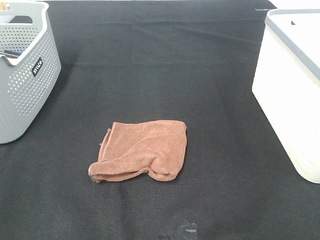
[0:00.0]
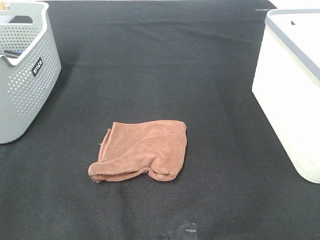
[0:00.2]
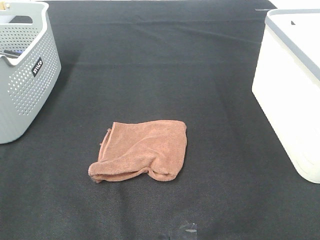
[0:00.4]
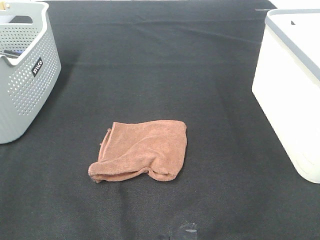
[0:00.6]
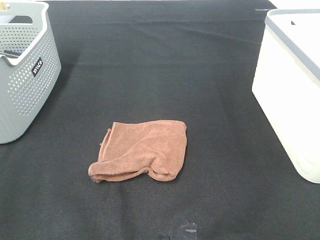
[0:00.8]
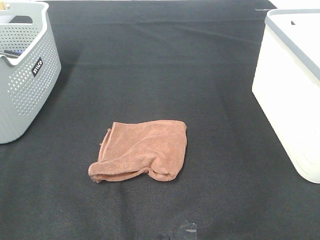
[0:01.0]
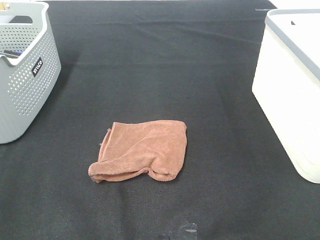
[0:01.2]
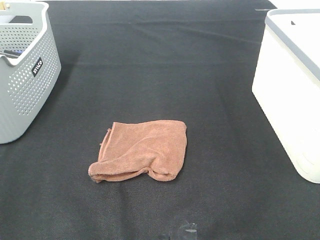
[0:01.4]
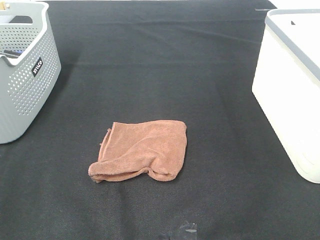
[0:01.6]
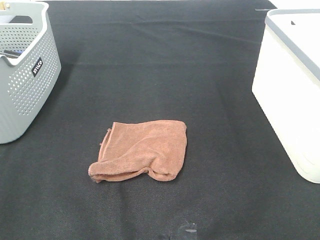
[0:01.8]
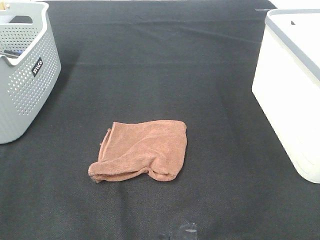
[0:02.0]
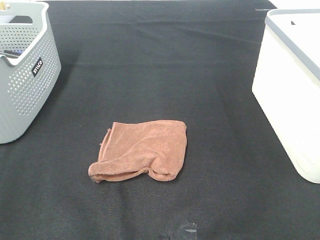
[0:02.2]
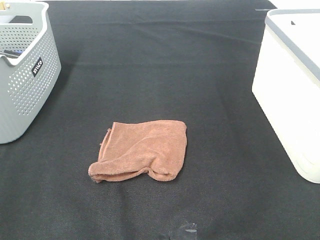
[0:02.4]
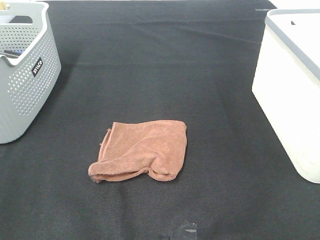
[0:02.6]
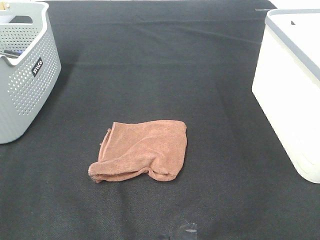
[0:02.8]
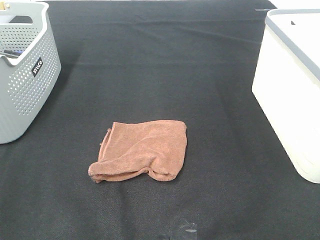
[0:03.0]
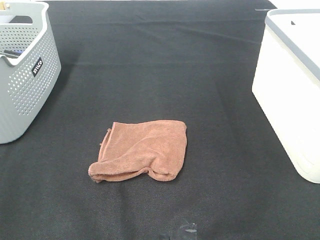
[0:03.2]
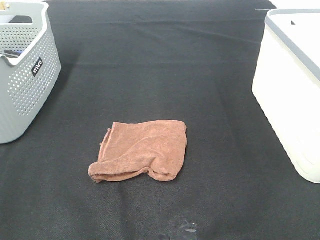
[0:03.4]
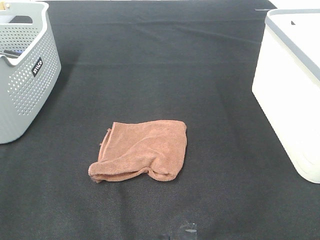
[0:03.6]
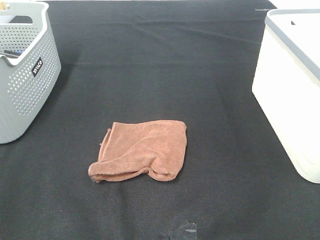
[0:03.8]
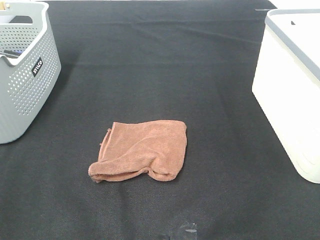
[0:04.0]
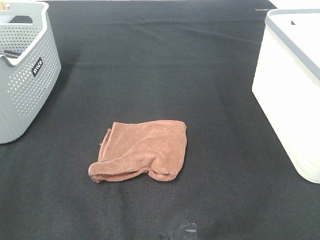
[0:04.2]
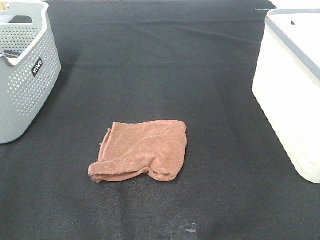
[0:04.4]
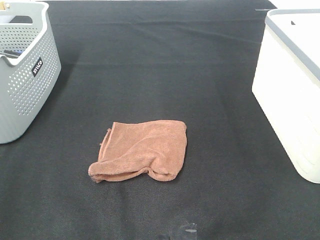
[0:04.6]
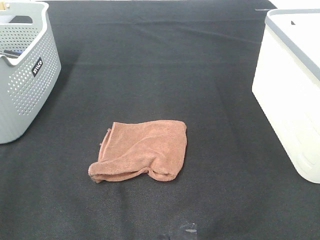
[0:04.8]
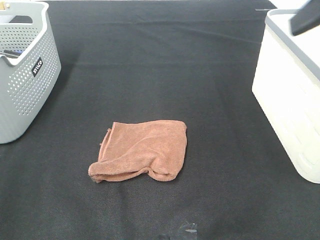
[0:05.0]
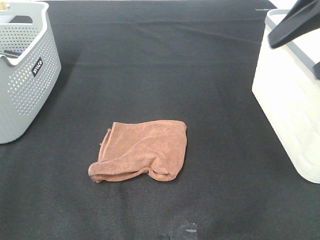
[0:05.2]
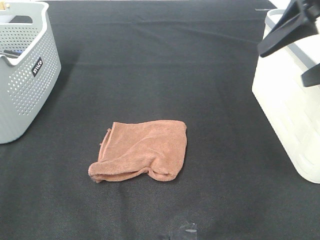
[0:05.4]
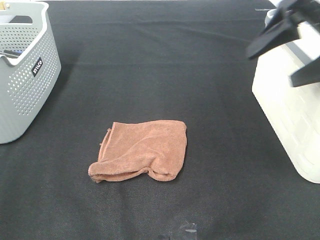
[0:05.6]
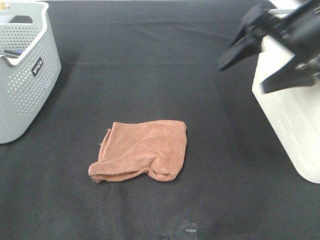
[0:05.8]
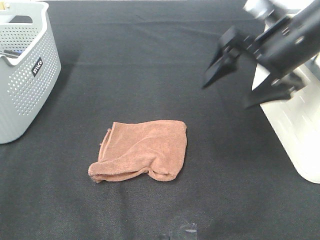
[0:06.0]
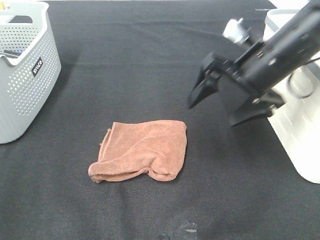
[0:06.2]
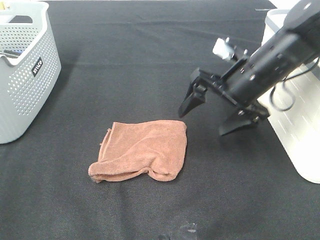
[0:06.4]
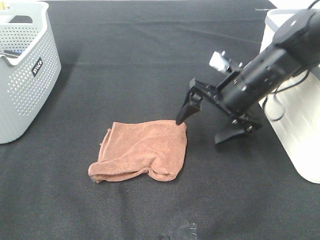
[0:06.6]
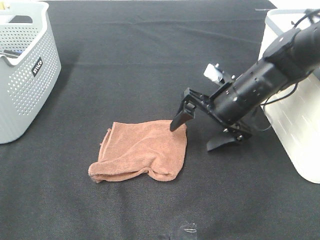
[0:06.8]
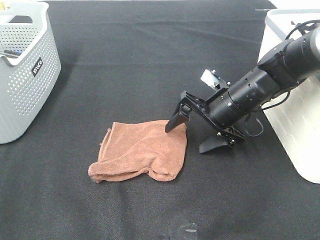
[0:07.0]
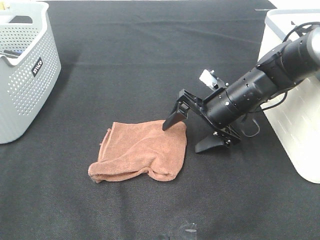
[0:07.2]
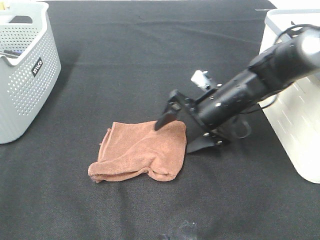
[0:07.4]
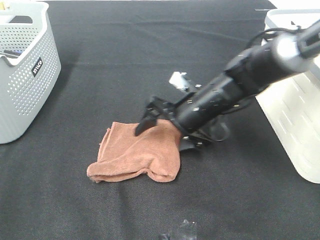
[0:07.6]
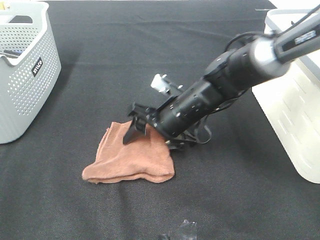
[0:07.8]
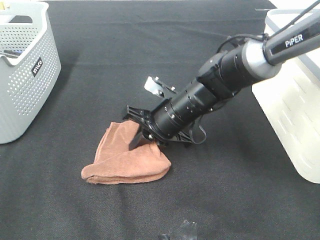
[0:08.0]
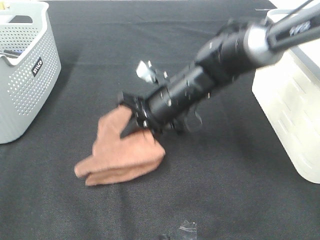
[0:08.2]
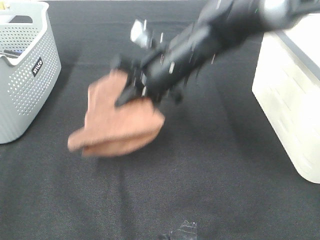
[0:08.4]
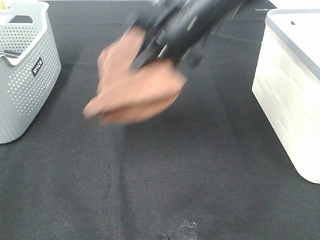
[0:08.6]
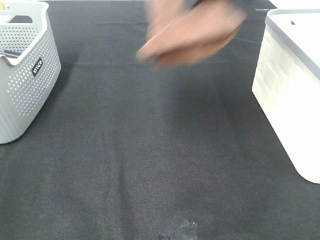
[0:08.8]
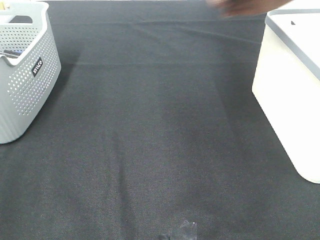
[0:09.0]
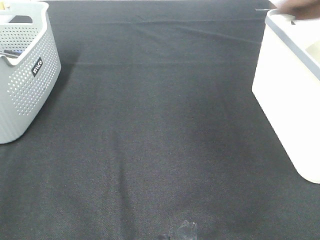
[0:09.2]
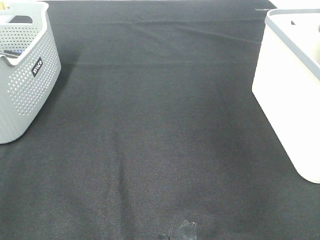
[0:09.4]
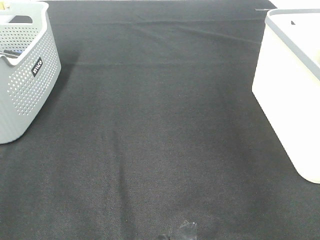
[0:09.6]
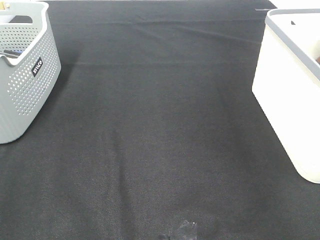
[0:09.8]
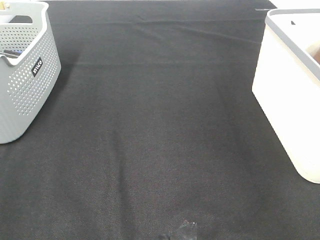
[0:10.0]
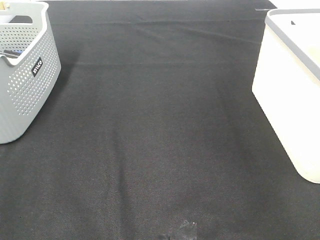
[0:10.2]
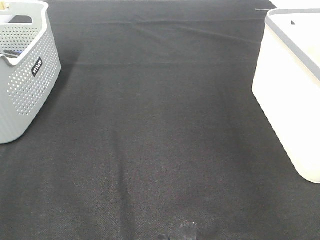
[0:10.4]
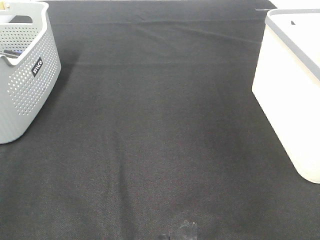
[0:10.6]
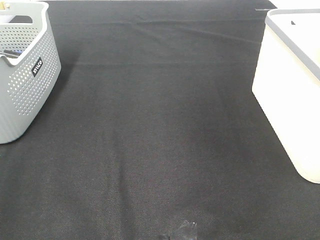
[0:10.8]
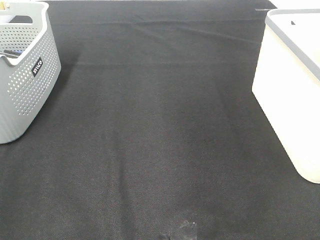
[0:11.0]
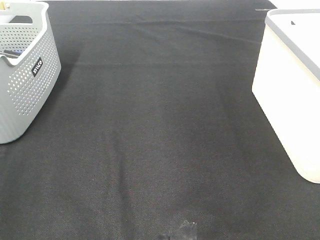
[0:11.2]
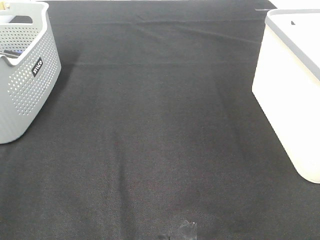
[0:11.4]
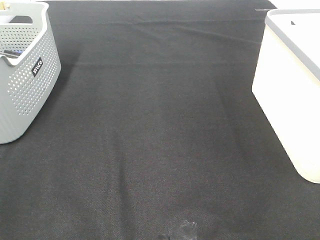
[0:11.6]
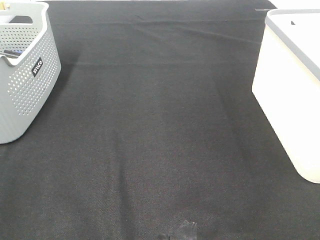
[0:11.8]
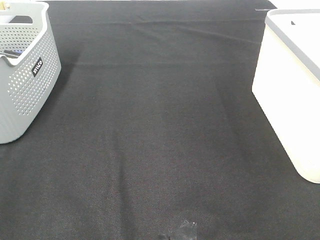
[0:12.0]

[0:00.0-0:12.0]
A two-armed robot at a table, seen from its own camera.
Step, 0.0 to 8.0 s: Right hand: grab the folded brown towel.
Step, 8.2 to 10.0 s: Right hand: place the brown towel in right basket.
0.0 to 3.0 s: Both grippers stay put.
4.4 to 6.0 s: The right gripper is displaced forward, downward and to the left by approximately 25 cm.
6.0 to 7.6 s: The right gripper travels downward and to the left by some 20 cm.
7.6 to 9.0 s: The right gripper heads upward and to the right, covering roughly 35 cm, and closes up.
9.0 to 10.4 s: The right gripper is displaced to the right and downward by approximately 15 cm, and opens up.

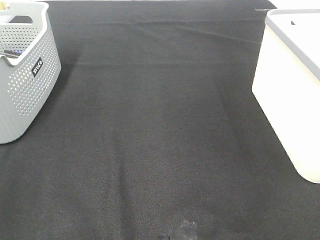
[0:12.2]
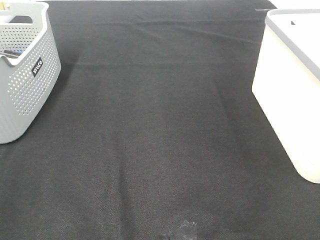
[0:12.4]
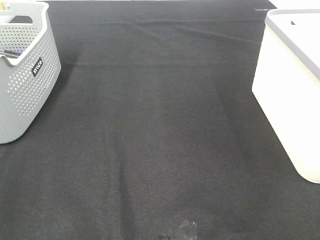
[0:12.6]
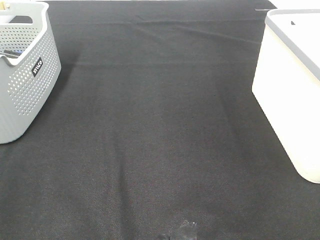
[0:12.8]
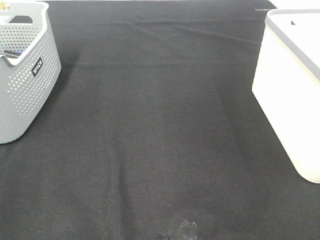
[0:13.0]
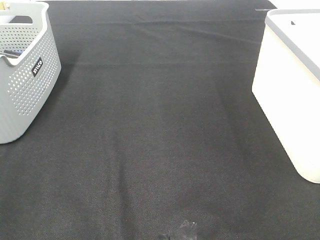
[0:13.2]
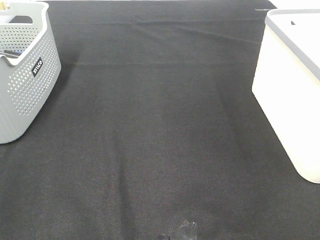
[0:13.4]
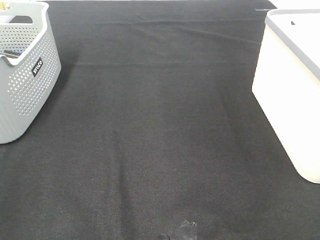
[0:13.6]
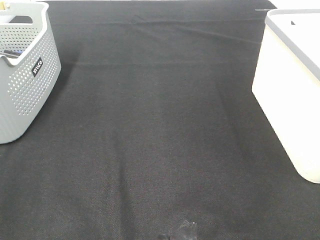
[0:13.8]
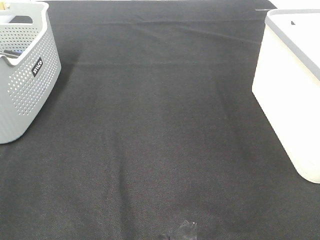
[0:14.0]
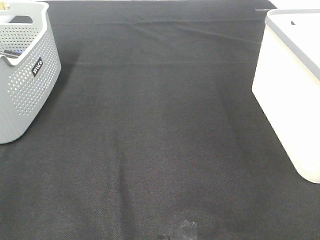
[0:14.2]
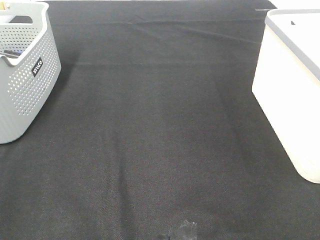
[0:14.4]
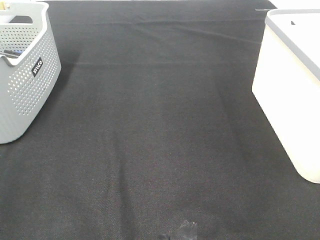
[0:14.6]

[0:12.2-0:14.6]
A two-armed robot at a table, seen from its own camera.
13.4 to 14.6 s: The two grippers keep their place.

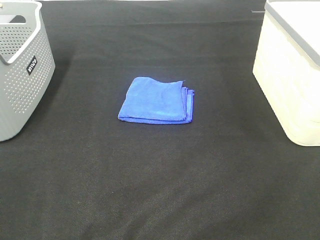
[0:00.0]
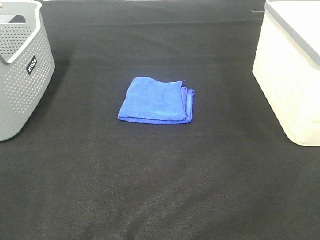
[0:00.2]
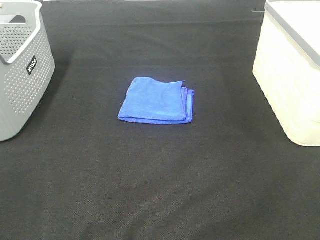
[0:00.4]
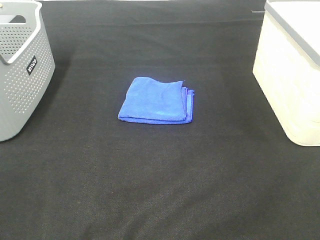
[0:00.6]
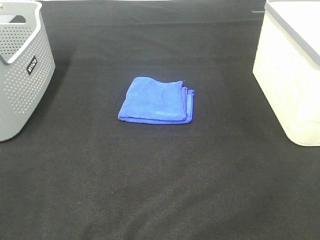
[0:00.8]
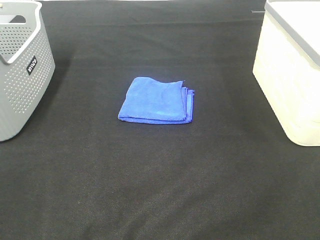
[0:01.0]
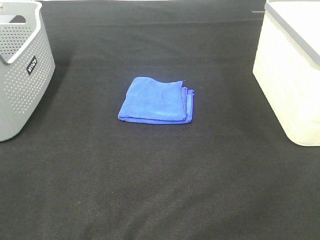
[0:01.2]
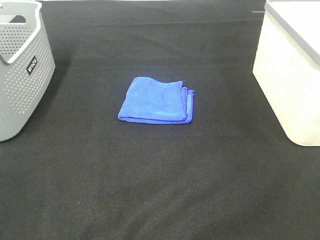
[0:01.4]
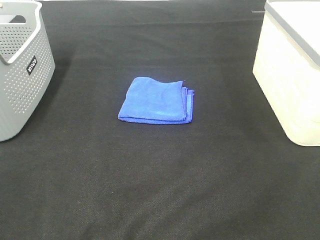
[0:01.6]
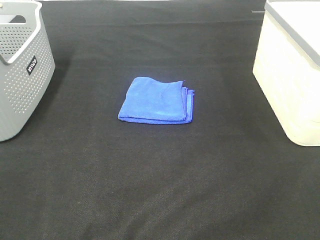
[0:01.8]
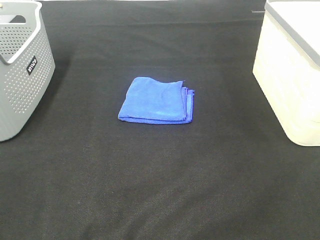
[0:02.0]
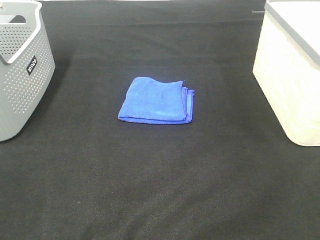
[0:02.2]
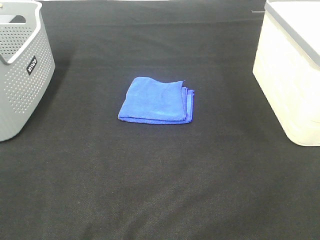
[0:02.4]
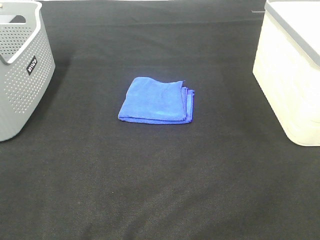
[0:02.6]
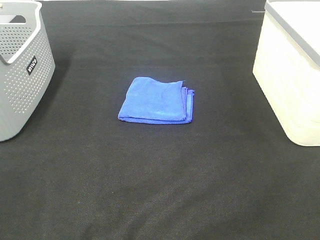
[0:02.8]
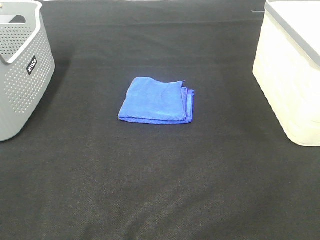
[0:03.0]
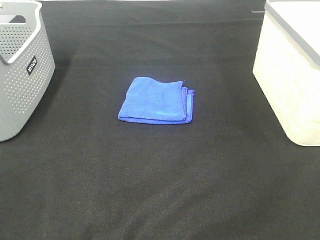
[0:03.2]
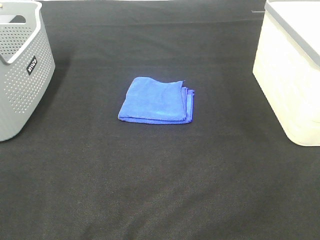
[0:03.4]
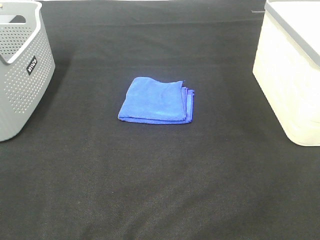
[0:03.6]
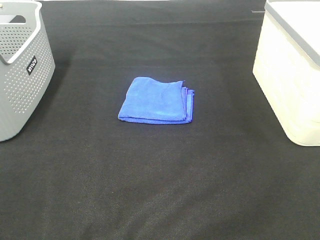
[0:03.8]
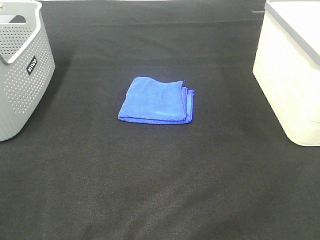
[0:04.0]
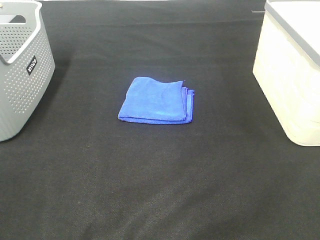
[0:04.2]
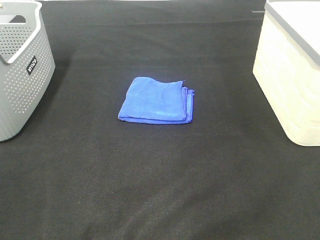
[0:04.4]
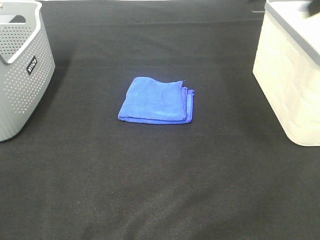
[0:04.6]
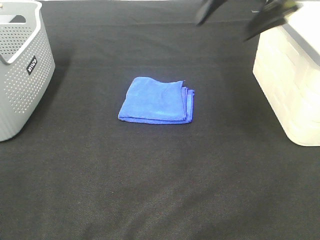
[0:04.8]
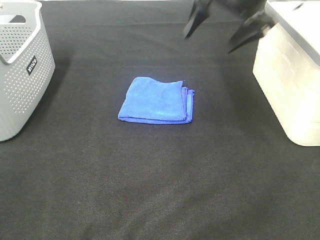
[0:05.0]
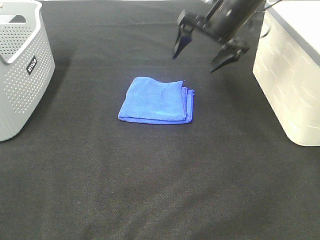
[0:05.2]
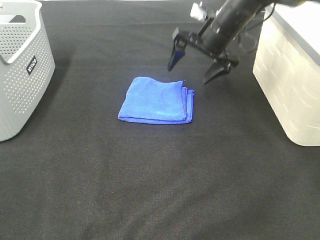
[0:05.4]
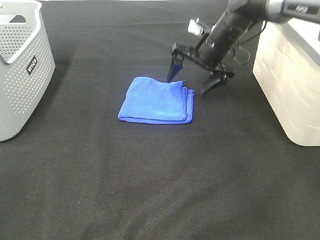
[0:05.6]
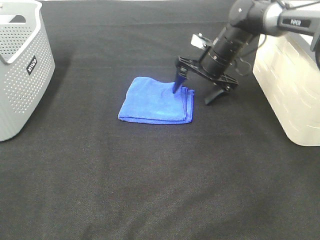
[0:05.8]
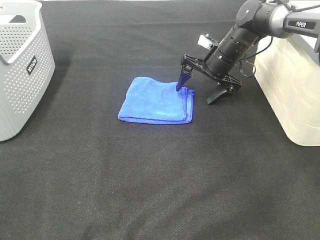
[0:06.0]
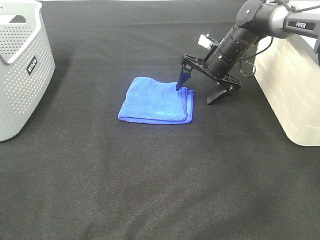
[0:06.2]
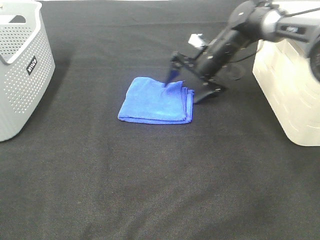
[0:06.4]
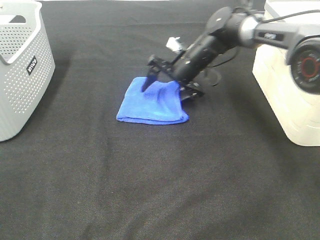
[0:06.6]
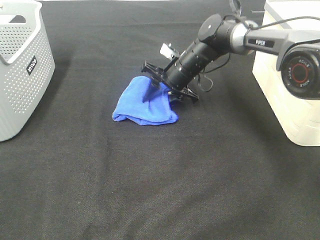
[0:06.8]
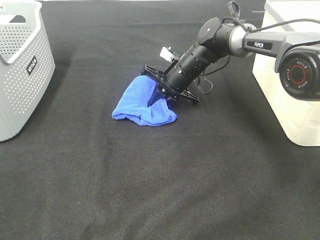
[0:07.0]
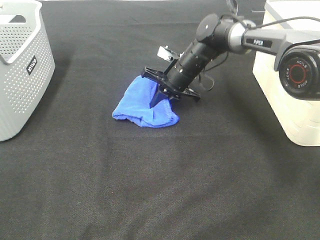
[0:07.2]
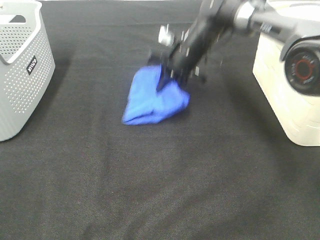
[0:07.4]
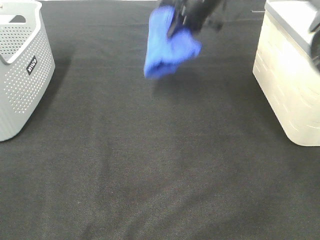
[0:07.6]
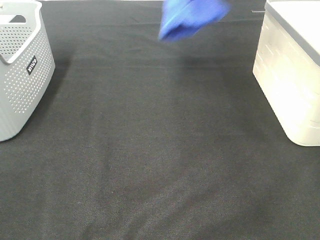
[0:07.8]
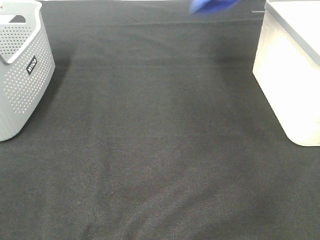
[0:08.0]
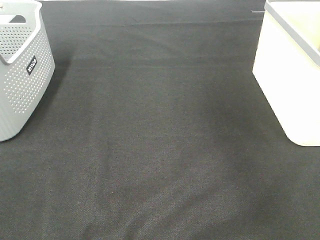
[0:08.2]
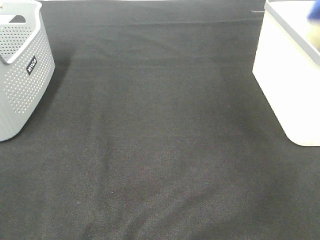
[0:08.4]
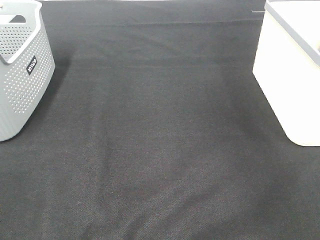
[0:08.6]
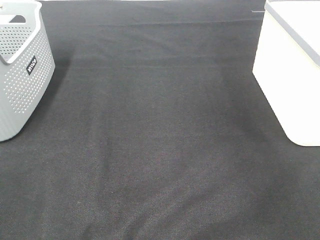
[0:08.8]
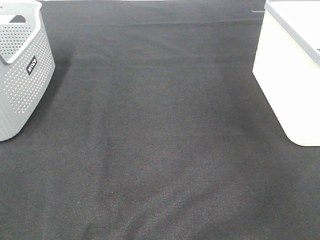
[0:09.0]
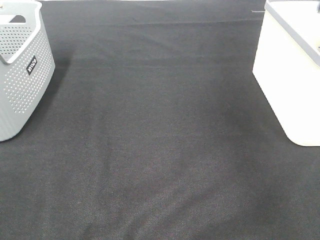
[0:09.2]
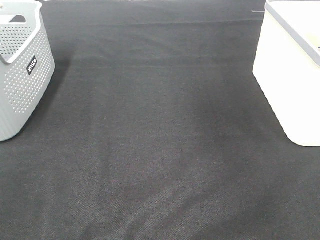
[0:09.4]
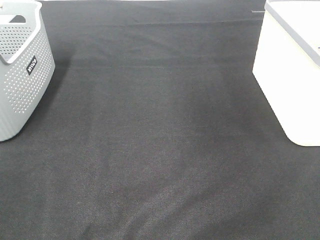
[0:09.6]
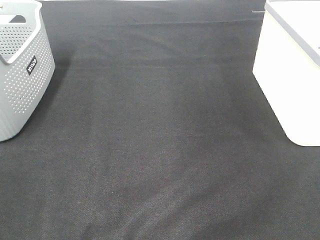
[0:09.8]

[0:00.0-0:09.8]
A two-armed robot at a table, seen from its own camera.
Step, 0.0 to 7.0 s: Right hand: grab the folded blue towel.
Step, 7.2 to 8.8 s: Right hand: place the blue towel in right basket.
0.0 to 2.8 s: Both grippers stay put.
4.2 to 5.6 s: The right gripper shifts about 50 cm forward, downward and to the left.
5.6 to 7.0 s: The right gripper heads to the left and downward, covering some 10 cm, and closes its fingers.
7.0 to 8.4 s: The right gripper heads to the right and upward, covering roughly 40 cm.
